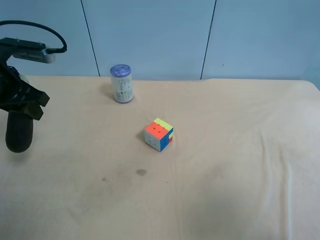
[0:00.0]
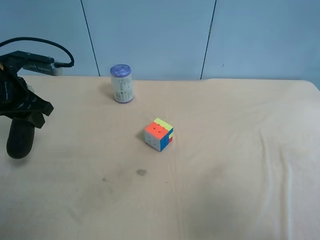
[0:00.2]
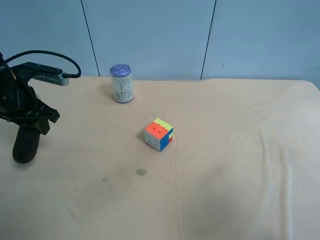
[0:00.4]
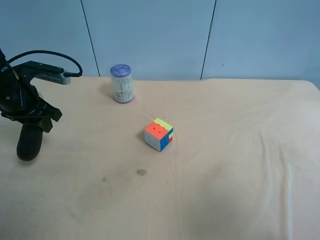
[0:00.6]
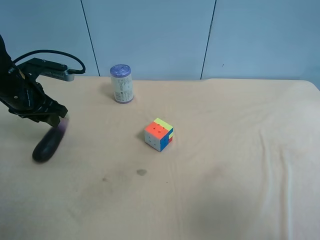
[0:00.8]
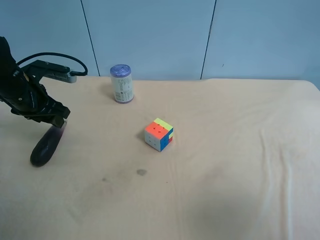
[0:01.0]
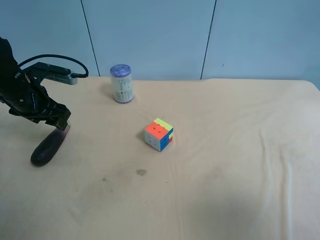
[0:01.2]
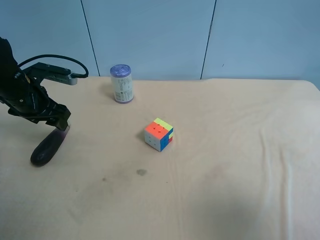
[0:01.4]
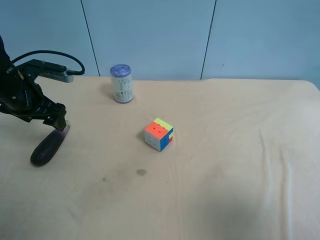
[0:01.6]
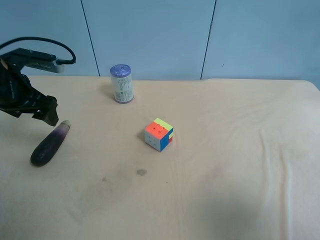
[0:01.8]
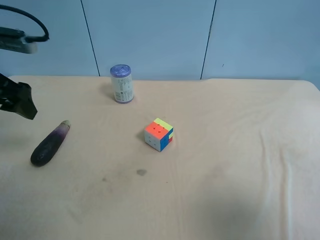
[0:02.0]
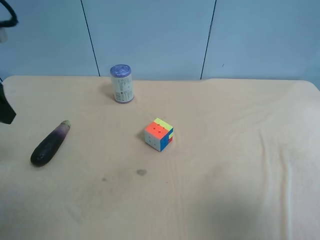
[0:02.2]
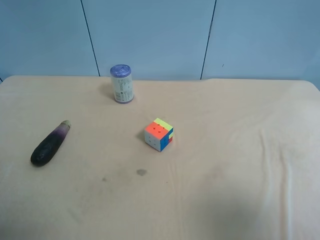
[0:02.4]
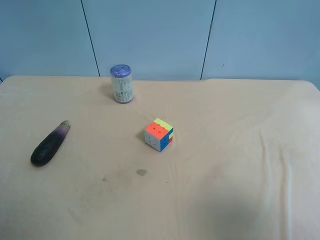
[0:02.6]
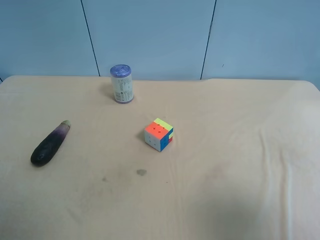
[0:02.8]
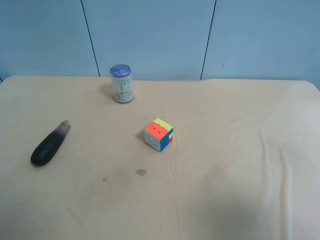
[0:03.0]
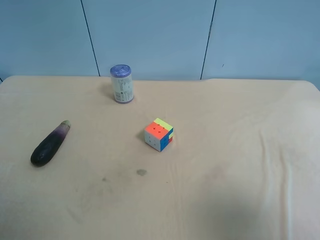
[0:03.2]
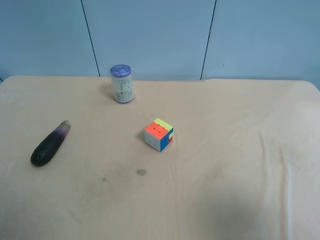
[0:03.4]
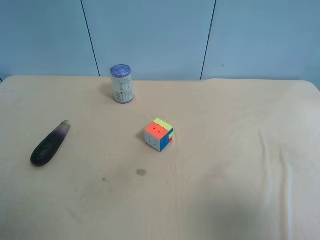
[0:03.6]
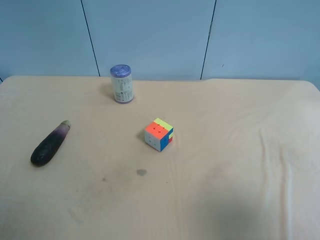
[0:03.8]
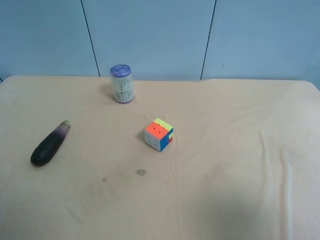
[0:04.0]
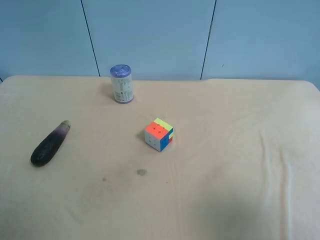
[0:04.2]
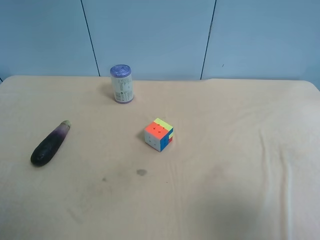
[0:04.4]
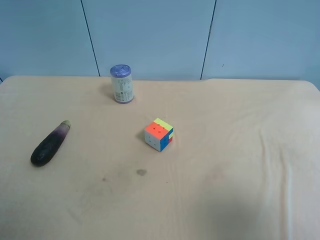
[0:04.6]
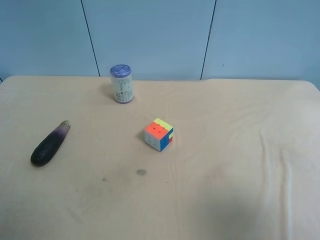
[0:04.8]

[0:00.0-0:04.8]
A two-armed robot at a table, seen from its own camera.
Task of the whole recording: use the right gripper to pick up the item and transfer it from the right gripper to the left gripper.
0:00.0 to 0:01.6: The left gripper opens up.
0:01.6 to 0:03.2: The left gripper travels backward by roughly 30 cm.
